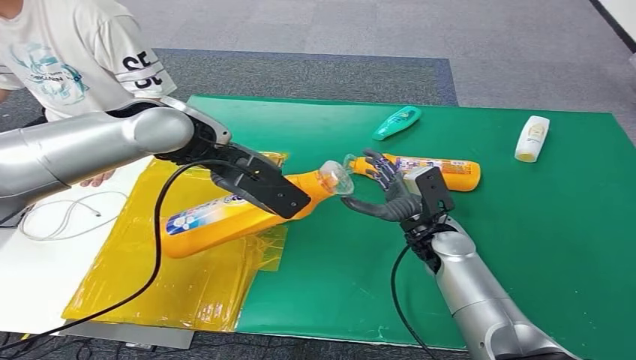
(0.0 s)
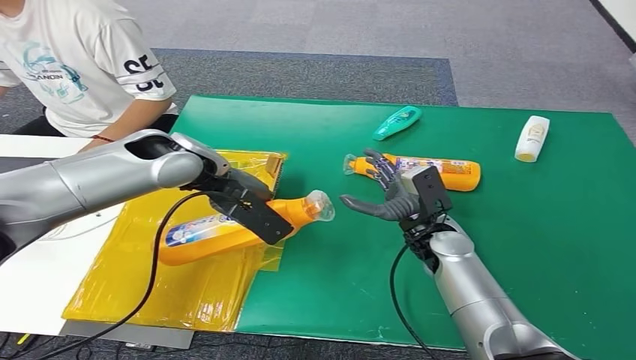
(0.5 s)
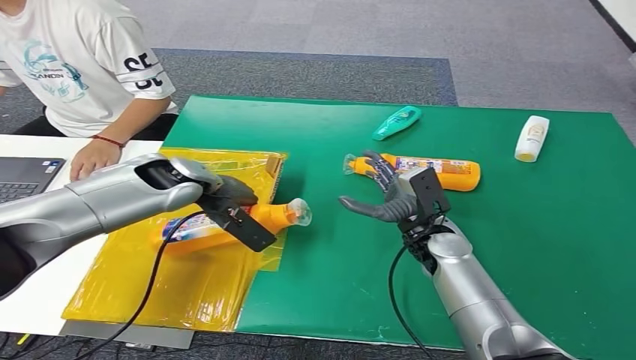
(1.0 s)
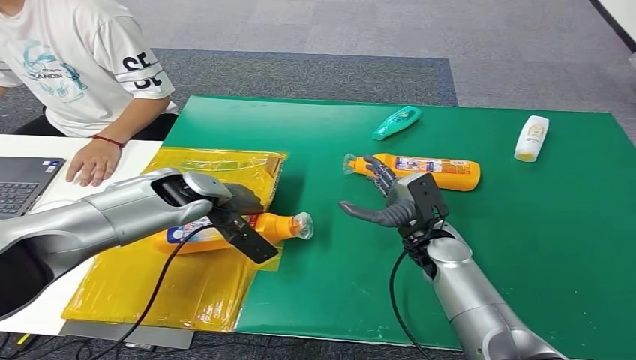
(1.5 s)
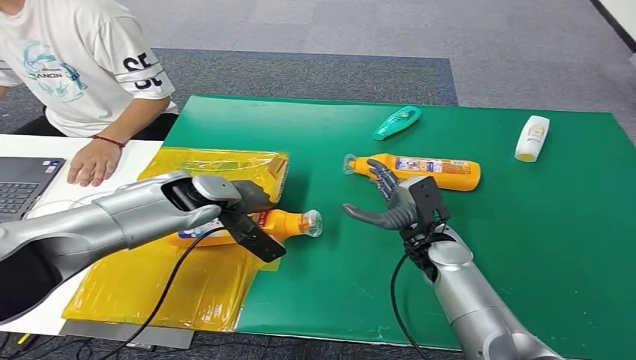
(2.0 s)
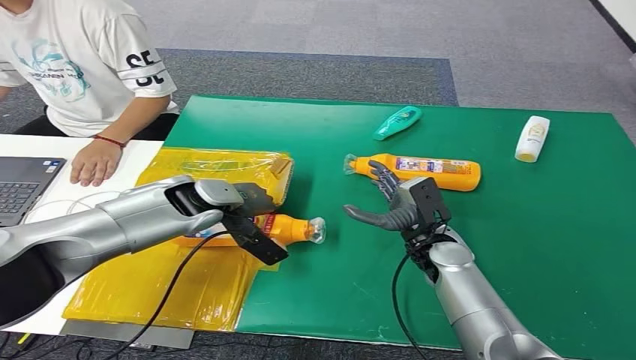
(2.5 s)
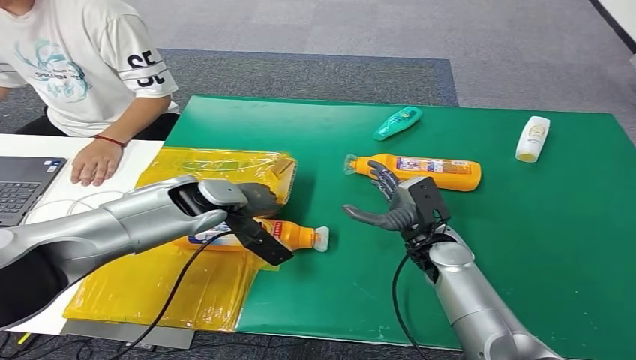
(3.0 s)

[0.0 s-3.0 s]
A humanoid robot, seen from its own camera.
Step, 0.0 to 3.0 s: Turn the bottle to the front side.
1.5 to 3.0 s: The hands stay close to where they were, moving slightly.
